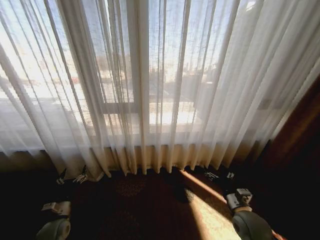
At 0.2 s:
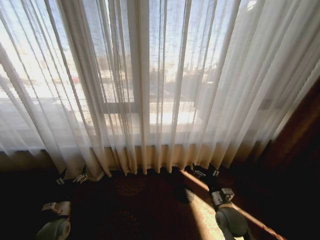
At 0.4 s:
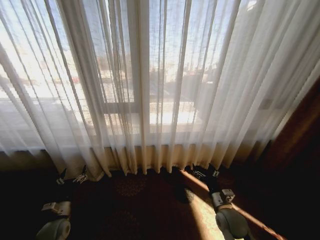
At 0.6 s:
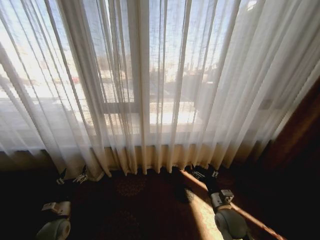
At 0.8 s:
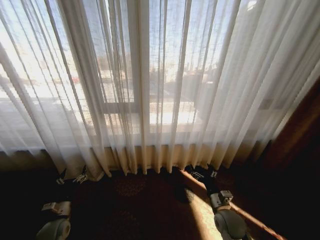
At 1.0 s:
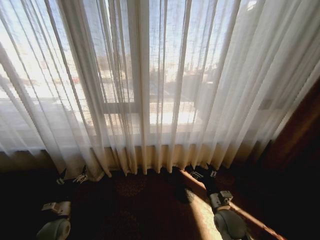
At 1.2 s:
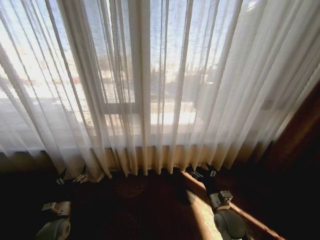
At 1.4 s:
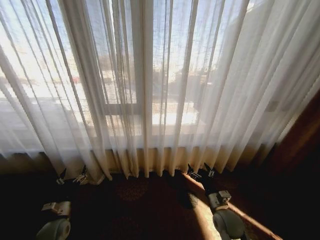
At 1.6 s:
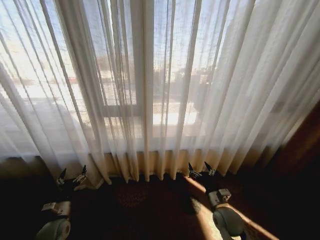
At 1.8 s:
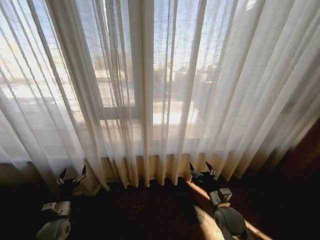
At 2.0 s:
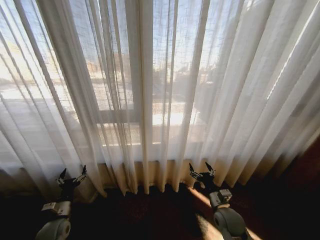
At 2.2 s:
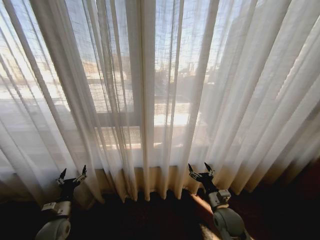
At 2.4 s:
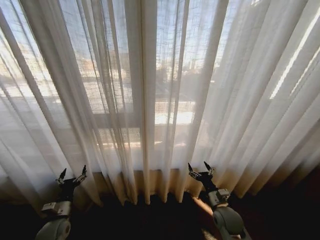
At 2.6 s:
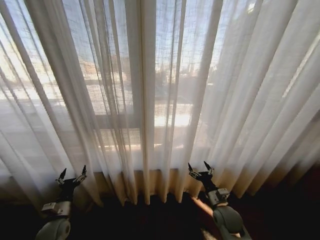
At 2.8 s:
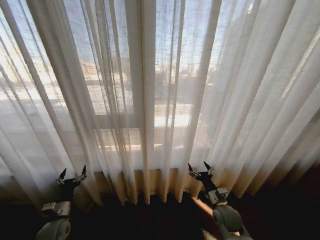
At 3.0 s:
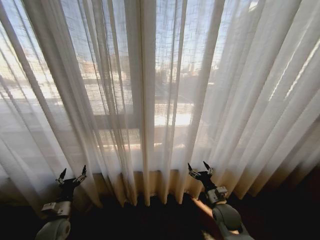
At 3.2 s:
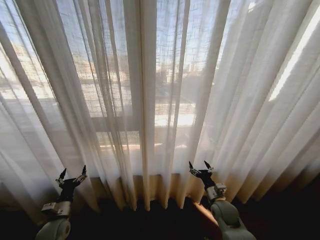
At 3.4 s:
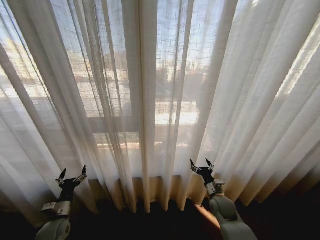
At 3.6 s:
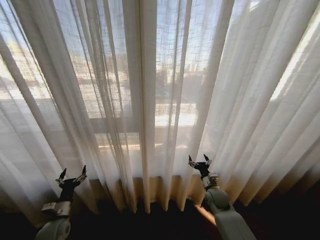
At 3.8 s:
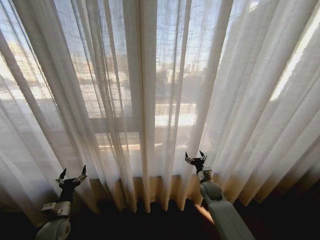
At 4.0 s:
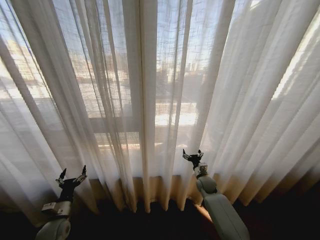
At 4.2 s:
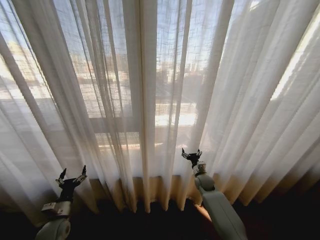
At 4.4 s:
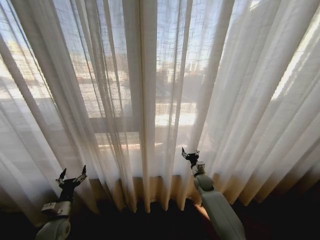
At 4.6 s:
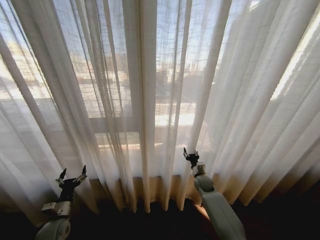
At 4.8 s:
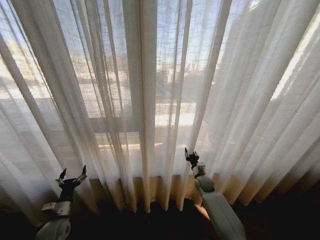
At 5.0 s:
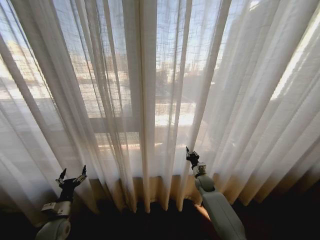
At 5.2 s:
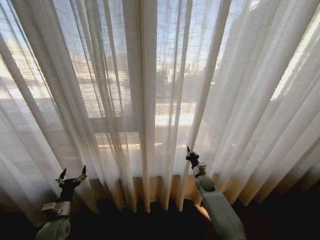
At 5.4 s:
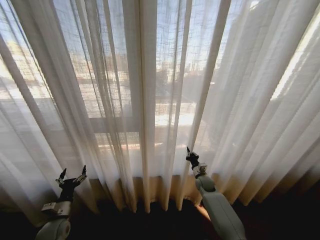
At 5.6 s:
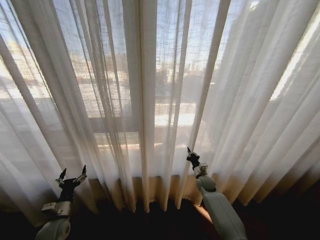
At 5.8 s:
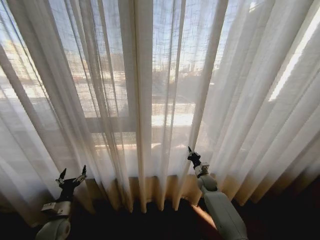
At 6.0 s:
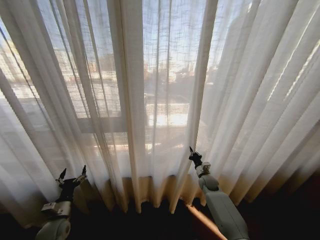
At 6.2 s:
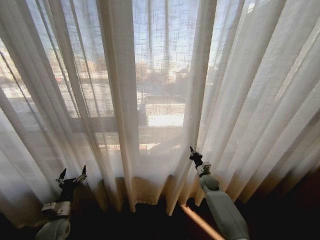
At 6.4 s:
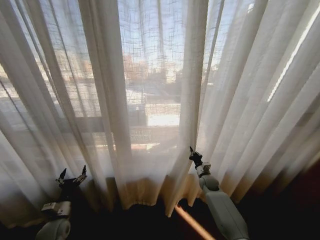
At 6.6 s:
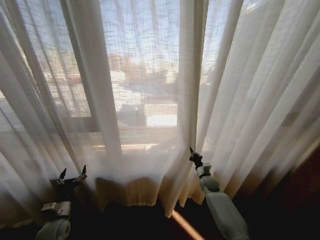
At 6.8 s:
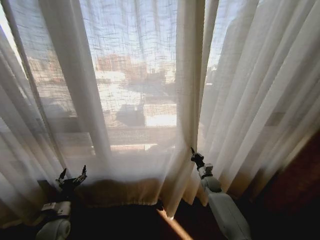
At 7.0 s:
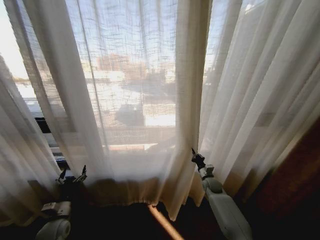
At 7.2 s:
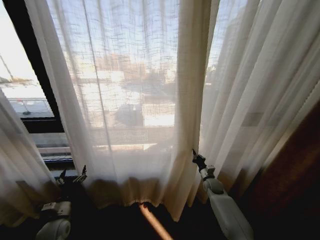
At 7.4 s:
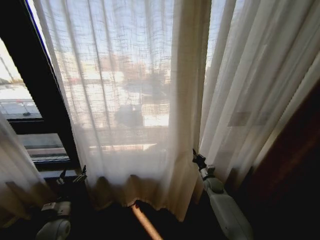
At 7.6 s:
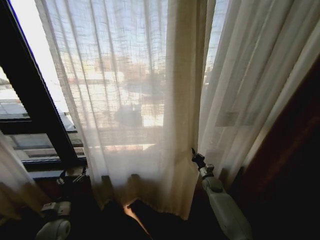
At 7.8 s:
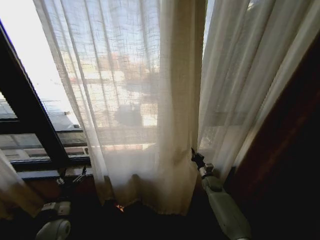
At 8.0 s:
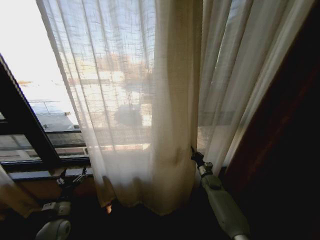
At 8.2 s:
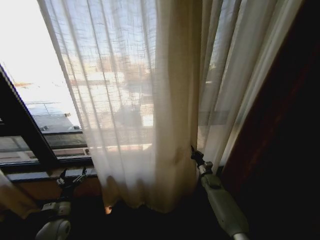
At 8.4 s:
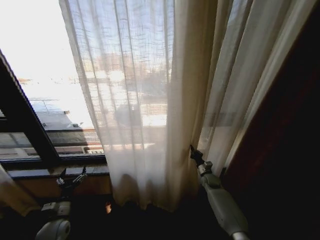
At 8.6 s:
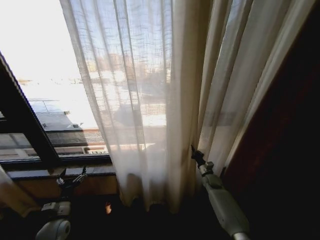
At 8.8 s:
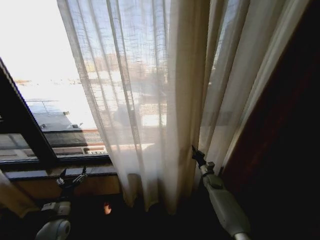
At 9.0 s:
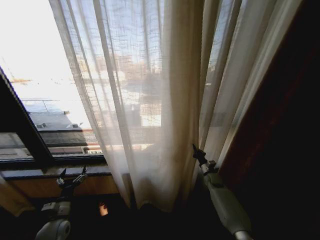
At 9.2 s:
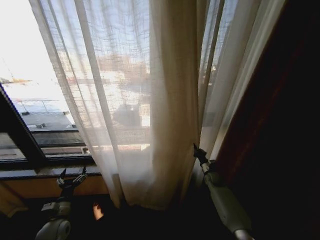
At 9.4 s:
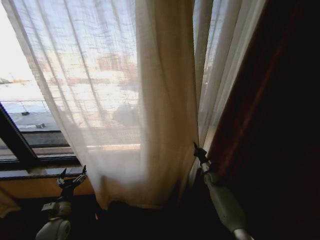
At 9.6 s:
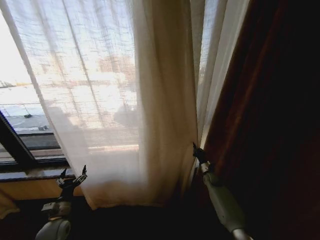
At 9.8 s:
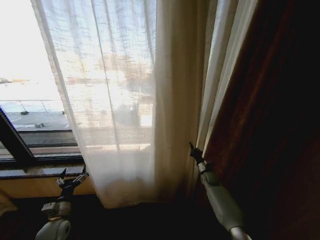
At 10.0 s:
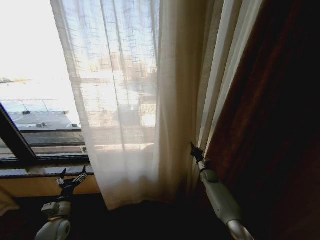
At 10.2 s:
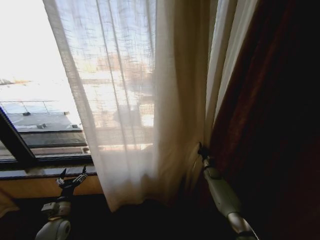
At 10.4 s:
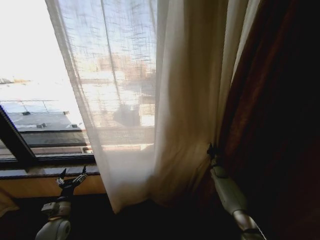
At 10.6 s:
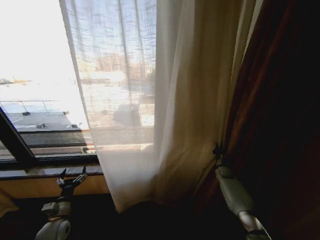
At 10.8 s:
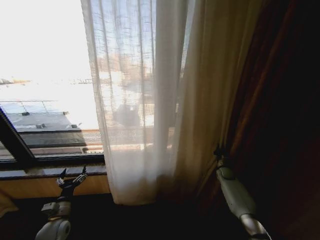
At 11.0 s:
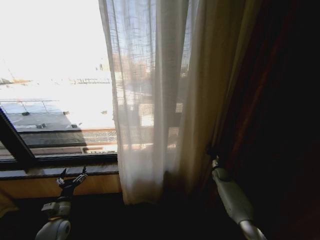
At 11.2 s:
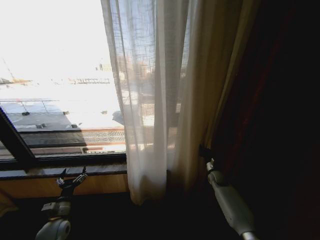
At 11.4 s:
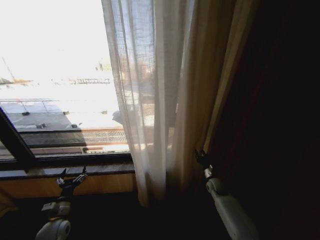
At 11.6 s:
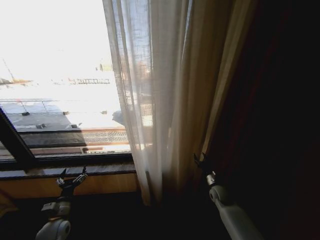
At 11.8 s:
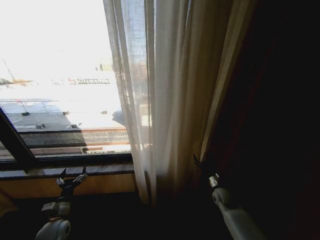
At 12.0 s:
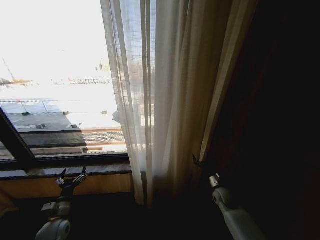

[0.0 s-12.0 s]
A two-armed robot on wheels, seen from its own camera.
Task of the whole recording: Open the curtains by pulling them apart, changing their state from closed to fully open.
3.0 to 4.4 s: The right gripper goes about 15 cm forward.
4.4 to 6.0 s: The right gripper closes.
9.0 to 10.4 s: The right gripper goes about 5 cm to the right.
10.4 to 12.0 s: The right gripper goes roughly 15 cm backward and to the left, and opens its fingers.

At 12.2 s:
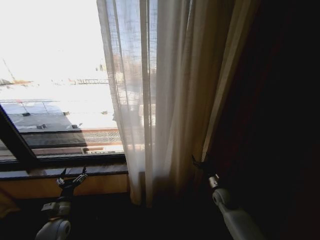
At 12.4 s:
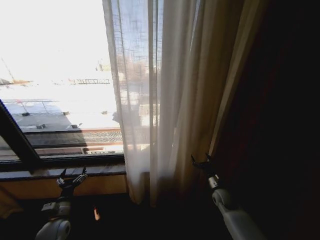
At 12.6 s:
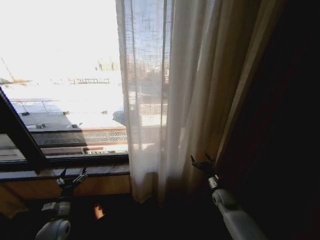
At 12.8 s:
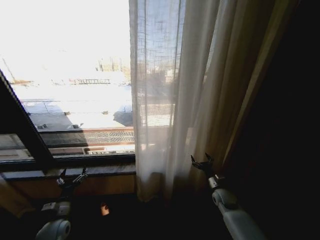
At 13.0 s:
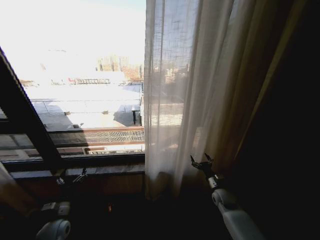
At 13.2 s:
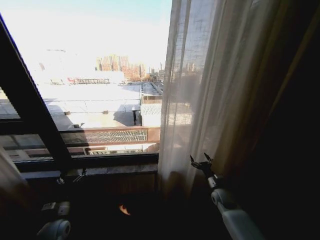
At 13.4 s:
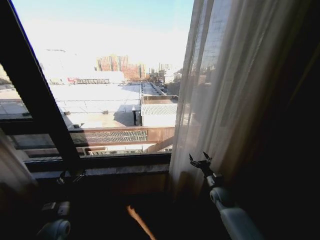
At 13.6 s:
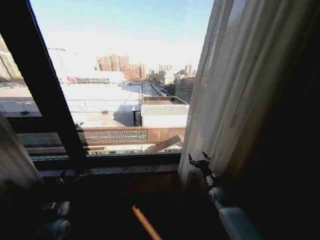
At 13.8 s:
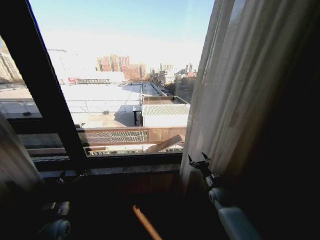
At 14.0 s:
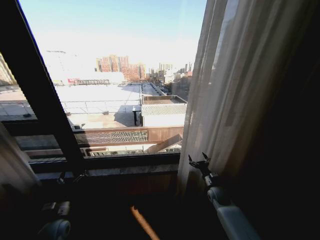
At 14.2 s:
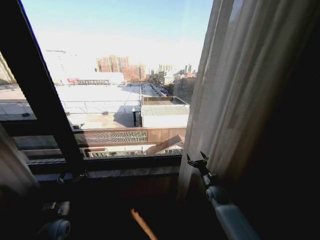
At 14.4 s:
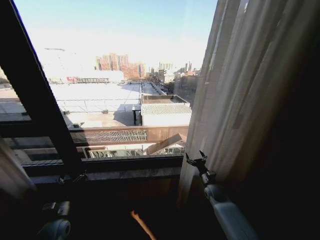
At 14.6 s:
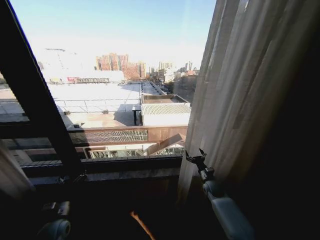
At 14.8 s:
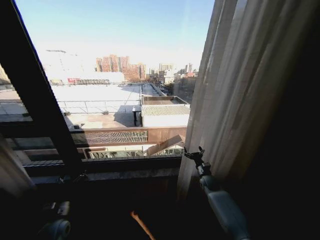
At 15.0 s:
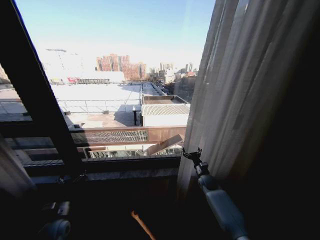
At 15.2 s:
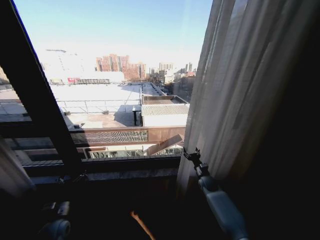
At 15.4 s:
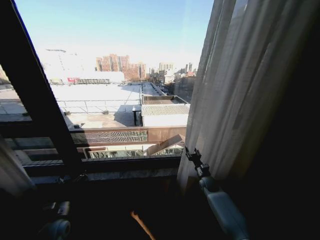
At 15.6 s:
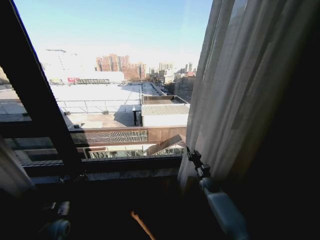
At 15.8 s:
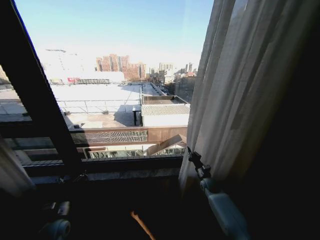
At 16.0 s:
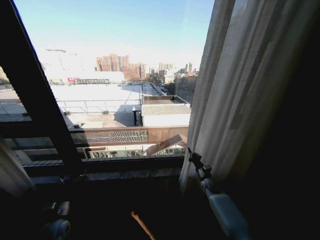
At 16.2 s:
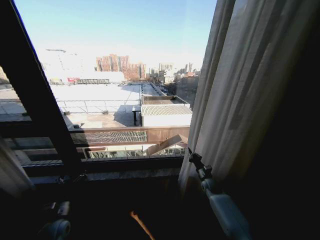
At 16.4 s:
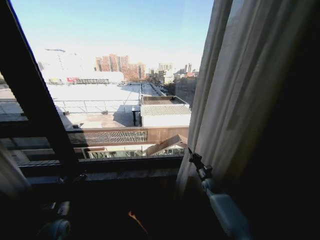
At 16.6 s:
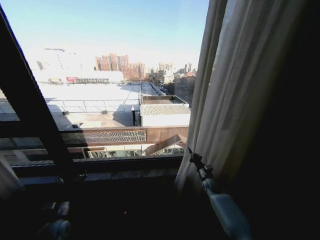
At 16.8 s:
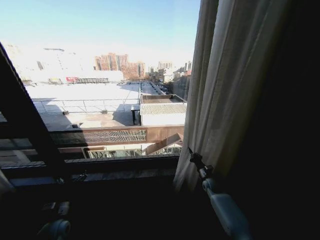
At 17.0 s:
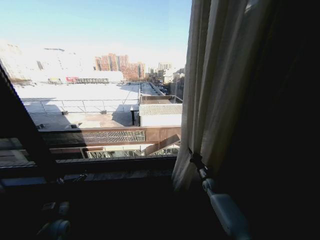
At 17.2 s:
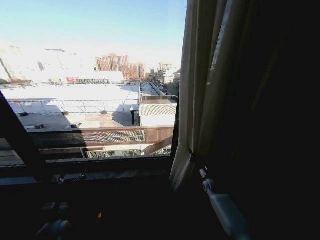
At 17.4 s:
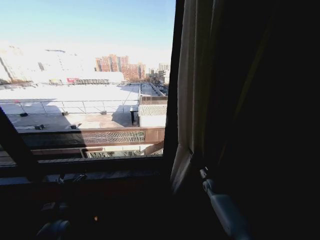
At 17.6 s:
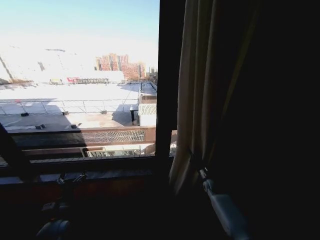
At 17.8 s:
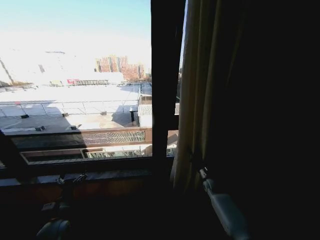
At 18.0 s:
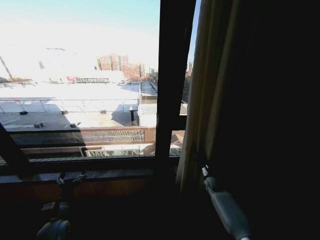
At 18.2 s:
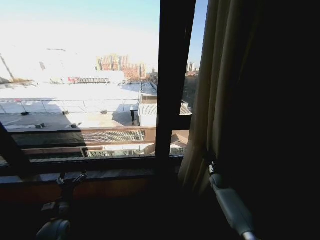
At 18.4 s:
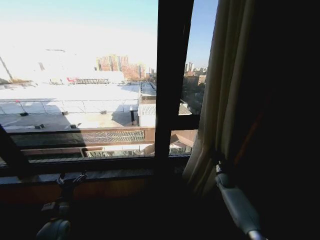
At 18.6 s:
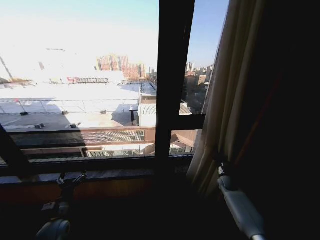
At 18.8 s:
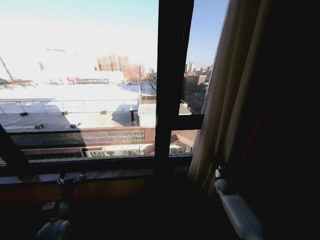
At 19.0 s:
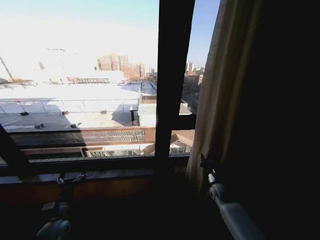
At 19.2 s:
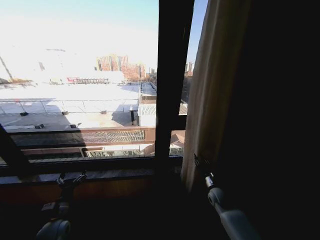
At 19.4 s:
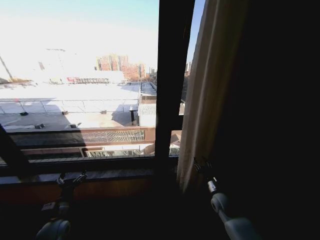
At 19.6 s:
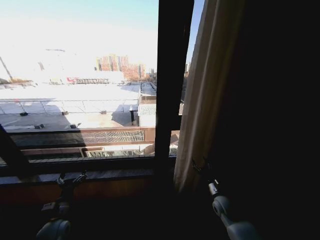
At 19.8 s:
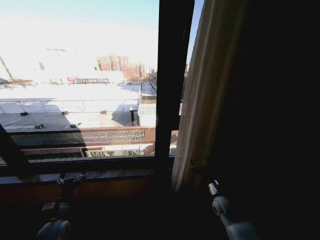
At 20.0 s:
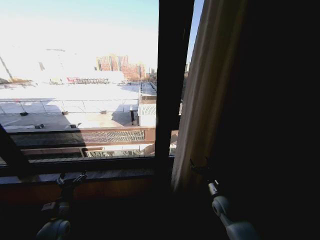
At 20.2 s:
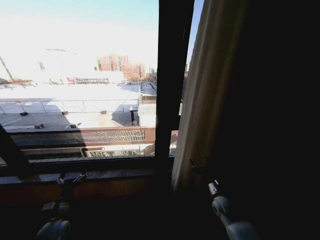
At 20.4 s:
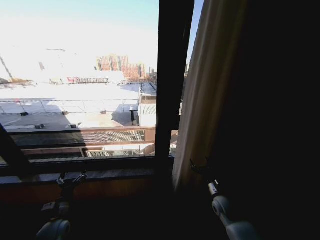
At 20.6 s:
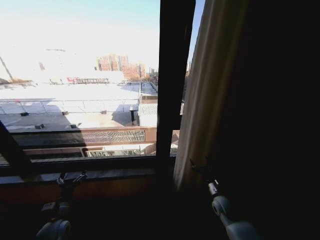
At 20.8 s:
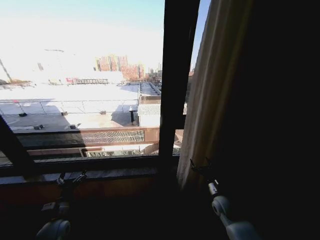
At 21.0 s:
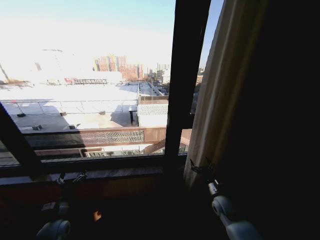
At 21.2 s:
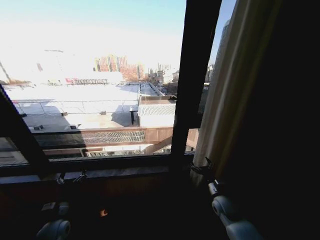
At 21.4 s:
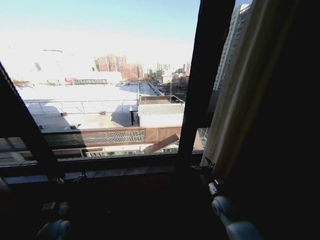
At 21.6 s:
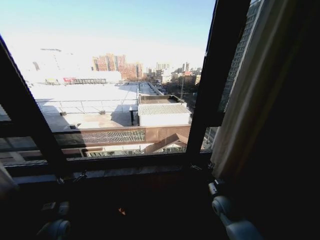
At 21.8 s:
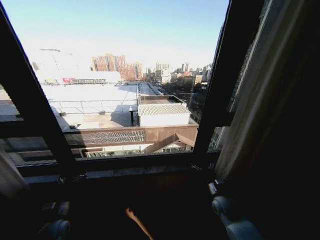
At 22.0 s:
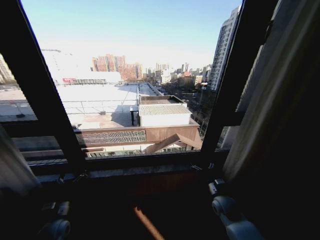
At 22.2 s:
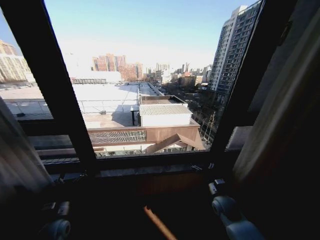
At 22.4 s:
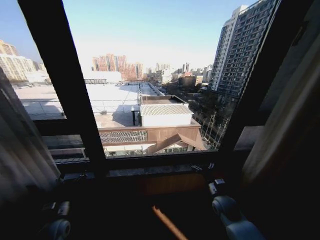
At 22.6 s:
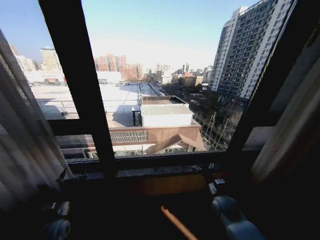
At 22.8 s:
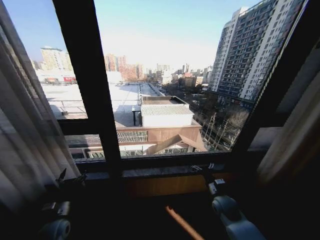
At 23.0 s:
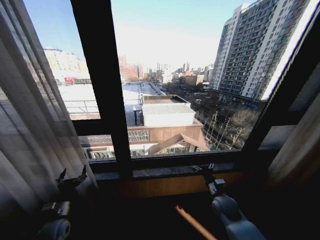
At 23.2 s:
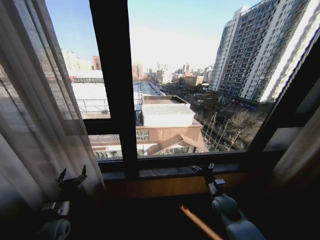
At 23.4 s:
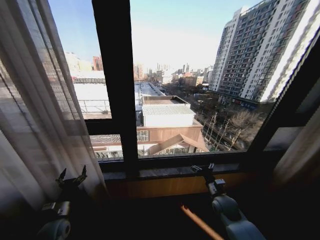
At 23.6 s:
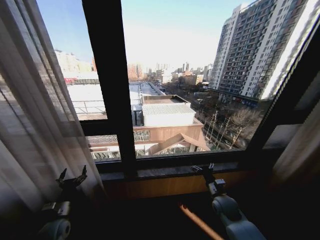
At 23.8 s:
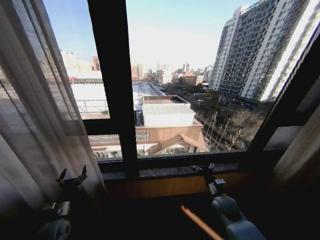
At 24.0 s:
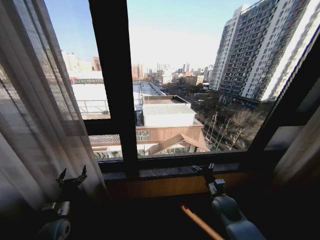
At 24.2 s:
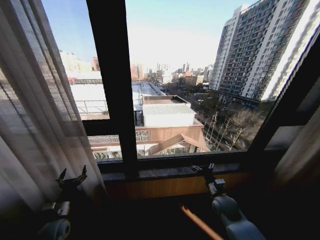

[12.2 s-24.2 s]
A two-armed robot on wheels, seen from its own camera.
Task of the whole recording: Open the curtains by pulling them apart, changing their state from closed to fully open.
13.8 to 15.2 s: The right gripper travels forward by about 5 cm.
15.2 to 16.6 s: The right gripper closes its fingers.
16.6 to 18.2 s: The right gripper shifts by approximately 5 cm.
18.2 to 19.8 s: The right gripper moves backward and to the left, roughly 15 cm, and opens its fingers.
19.8 to 21.2 s: Both grippers stay about where they are.
